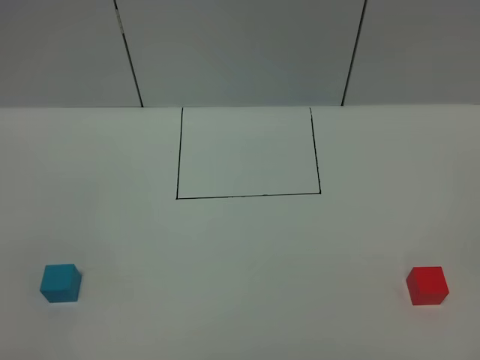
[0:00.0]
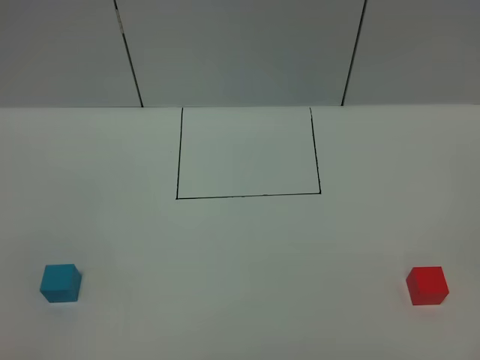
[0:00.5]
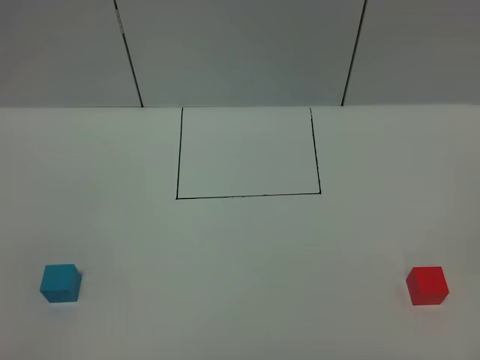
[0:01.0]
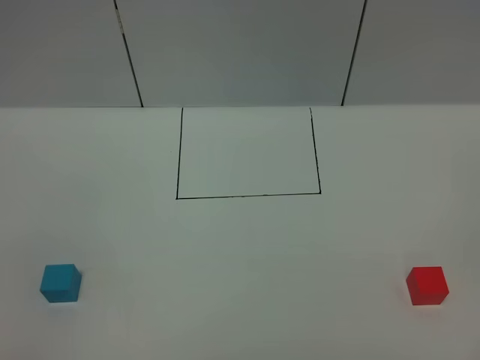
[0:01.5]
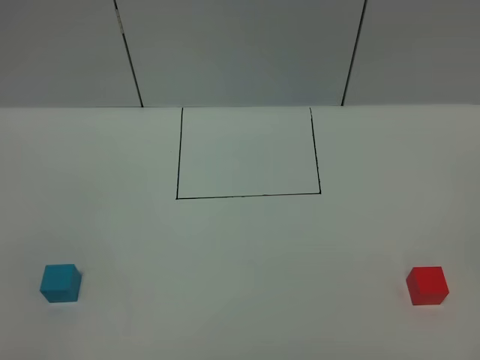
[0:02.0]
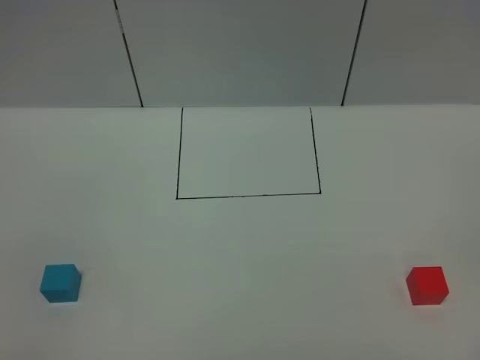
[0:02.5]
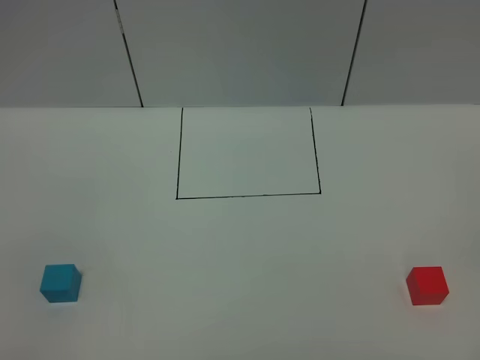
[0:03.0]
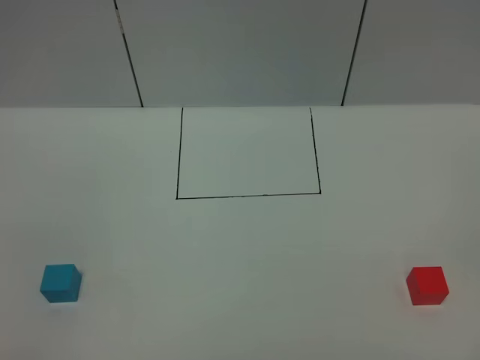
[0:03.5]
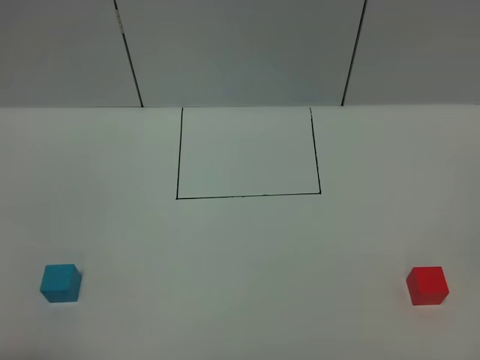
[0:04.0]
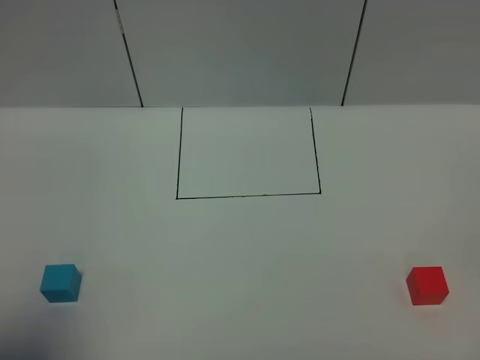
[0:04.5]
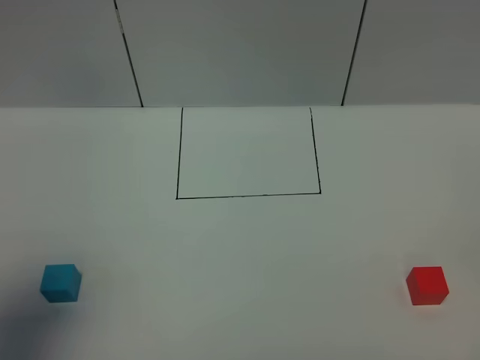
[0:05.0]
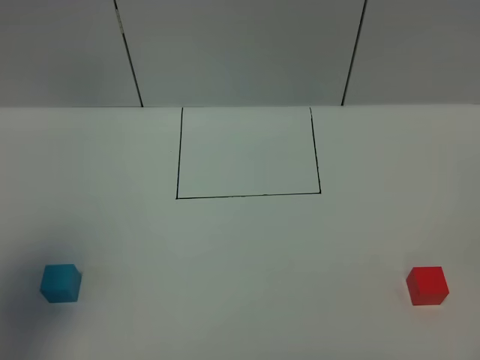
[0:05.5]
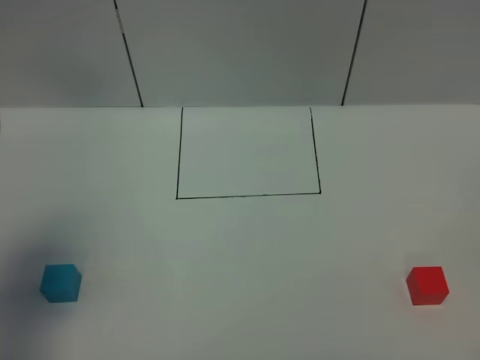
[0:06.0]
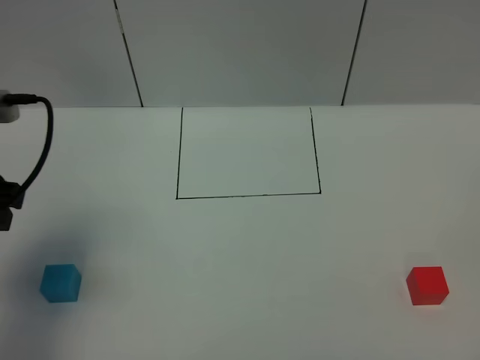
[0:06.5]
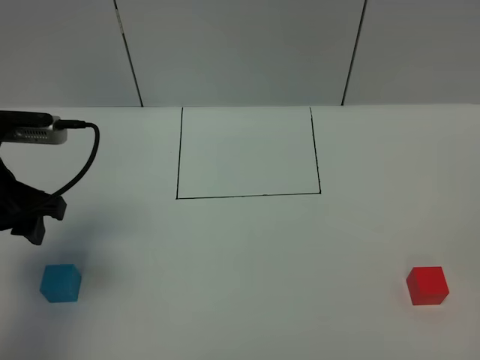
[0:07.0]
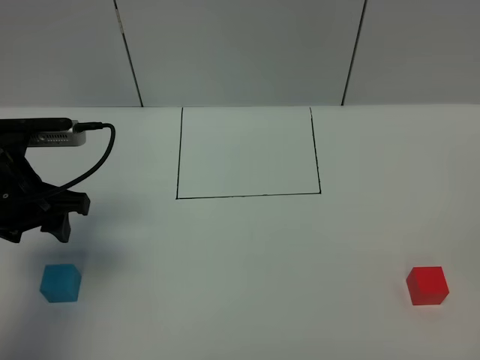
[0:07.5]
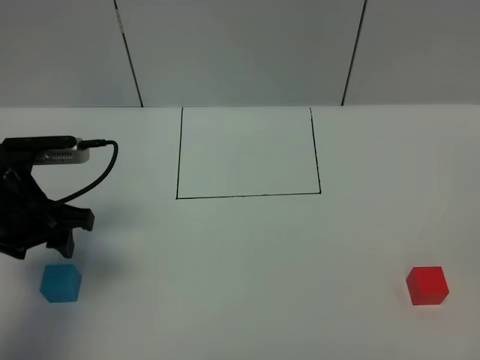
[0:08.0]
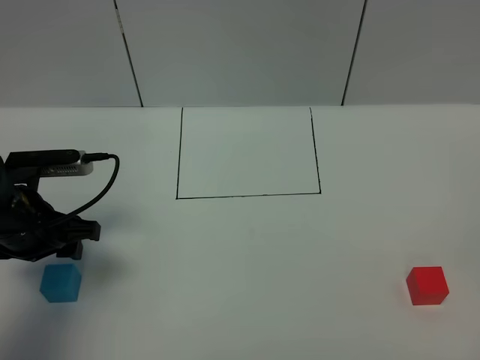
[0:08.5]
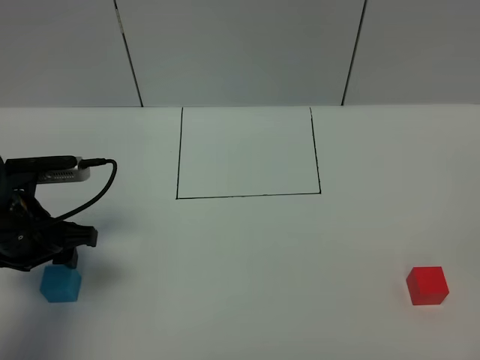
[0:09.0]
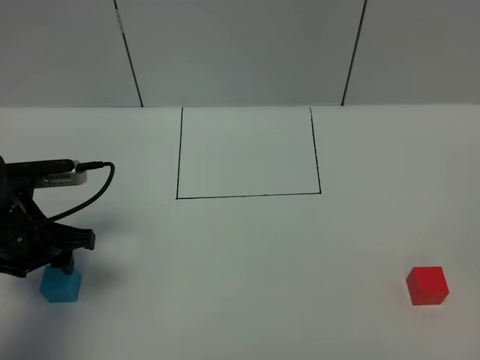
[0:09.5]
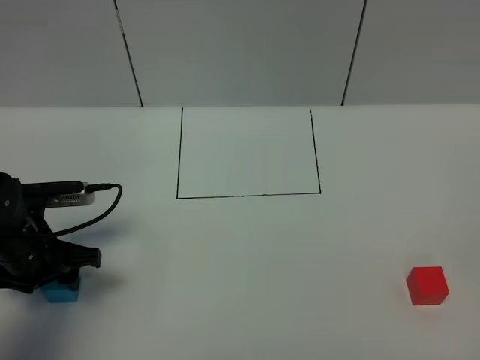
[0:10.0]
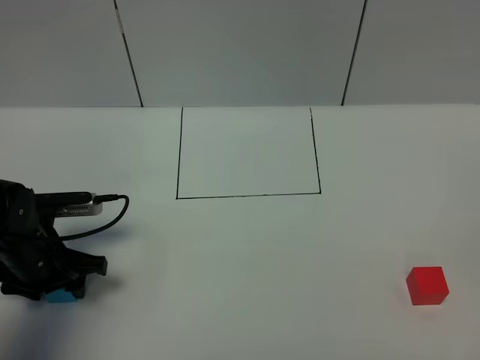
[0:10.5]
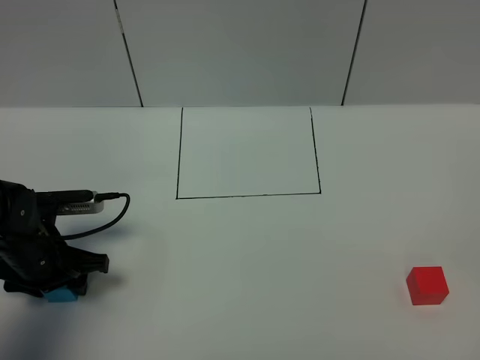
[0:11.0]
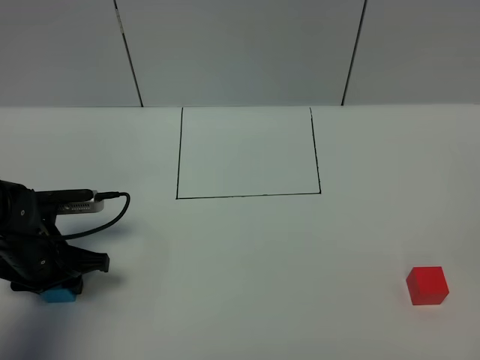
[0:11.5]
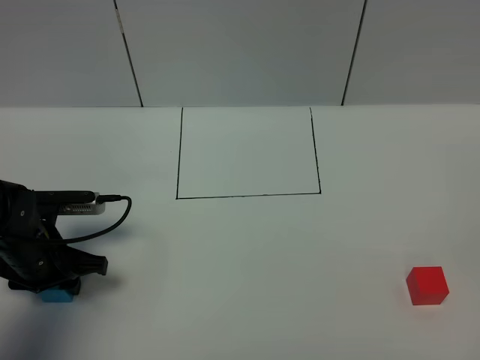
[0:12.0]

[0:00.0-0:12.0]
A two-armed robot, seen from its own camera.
Task of the whole recording: According to the building block template in front, assemble the scattered blocks together.
0:00.0 to 0:02.0: Neither gripper changes place.
0:04.0 to 0:06.0: The left gripper goes approximately 20 cm forward.
0:06.0 to 0:08.0: The left gripper moves downward, forward and to the right, approximately 15 cm.
0:08.0 to 0:10.0: The left gripper shifts approximately 5 cm downward.
0:10.0 to 0:12.0: The left gripper closes.

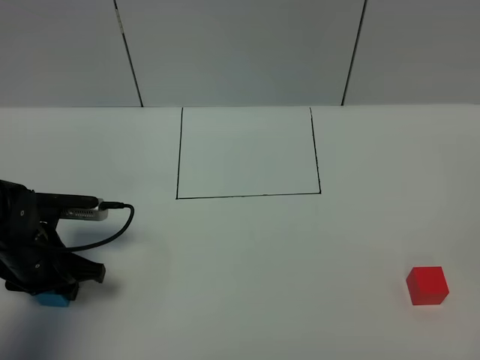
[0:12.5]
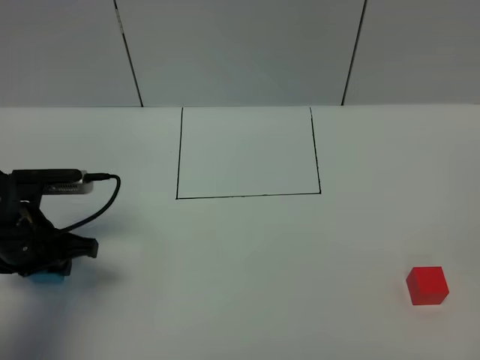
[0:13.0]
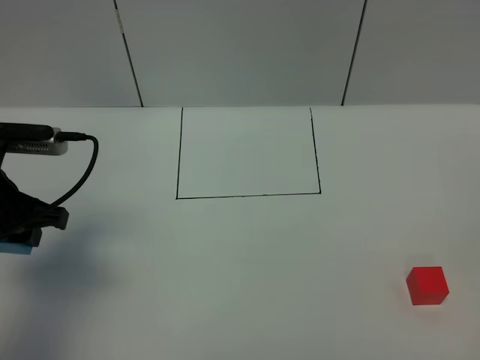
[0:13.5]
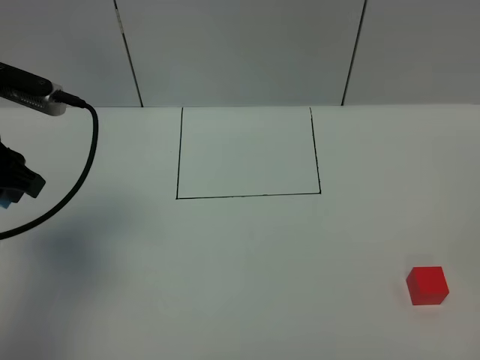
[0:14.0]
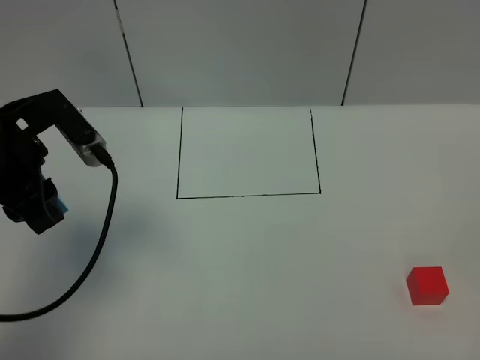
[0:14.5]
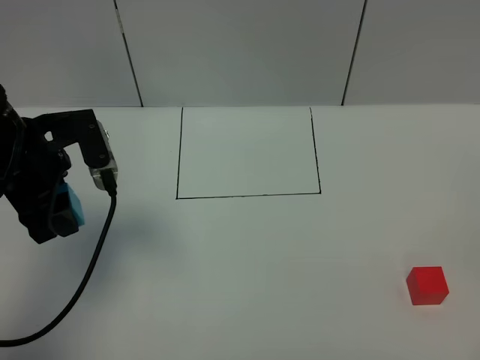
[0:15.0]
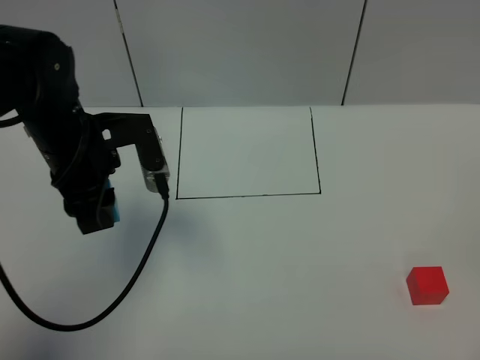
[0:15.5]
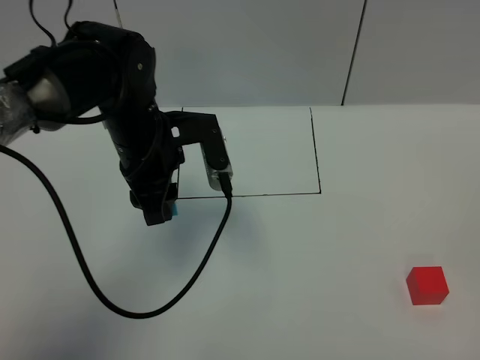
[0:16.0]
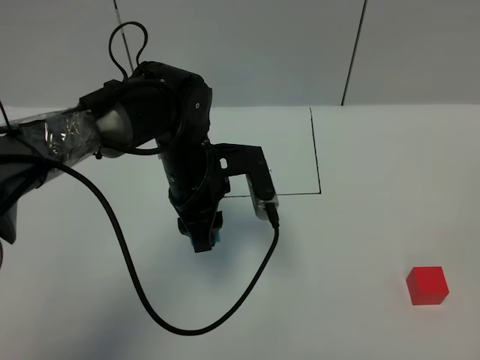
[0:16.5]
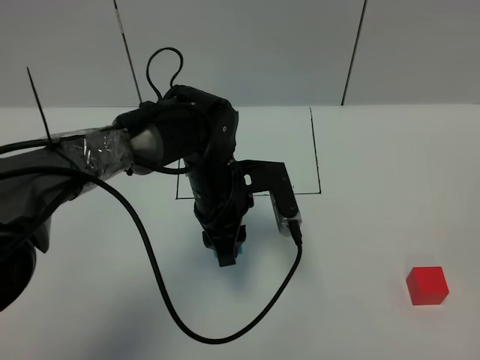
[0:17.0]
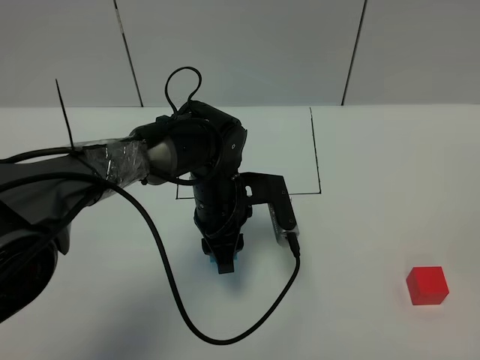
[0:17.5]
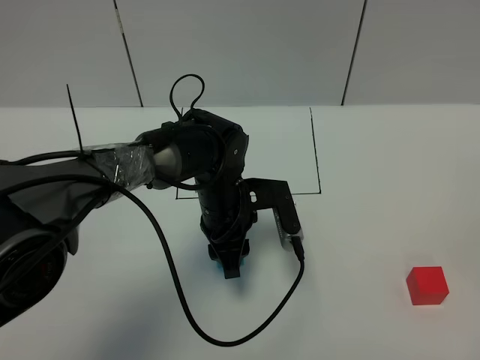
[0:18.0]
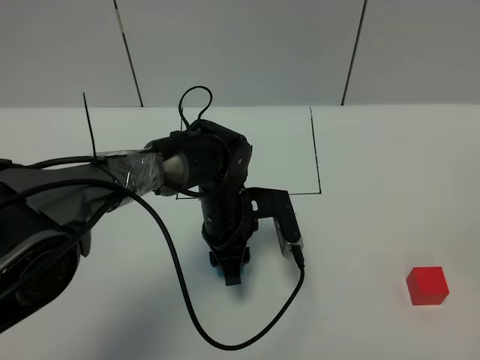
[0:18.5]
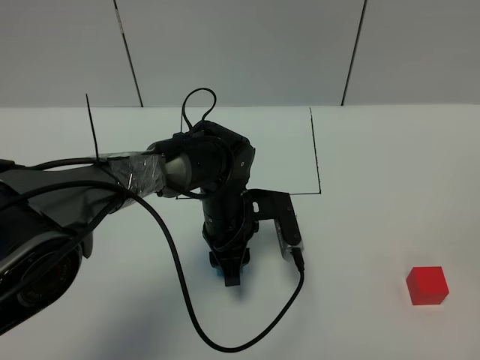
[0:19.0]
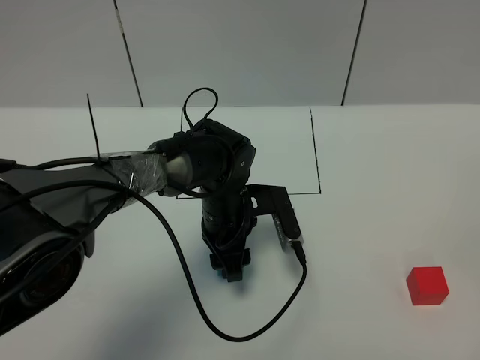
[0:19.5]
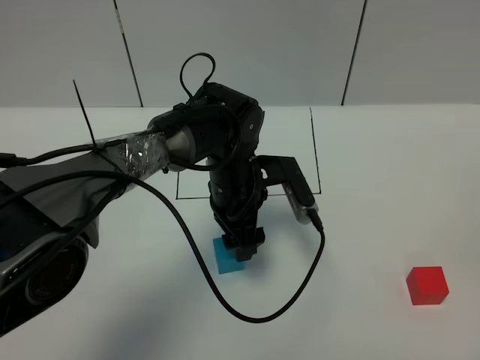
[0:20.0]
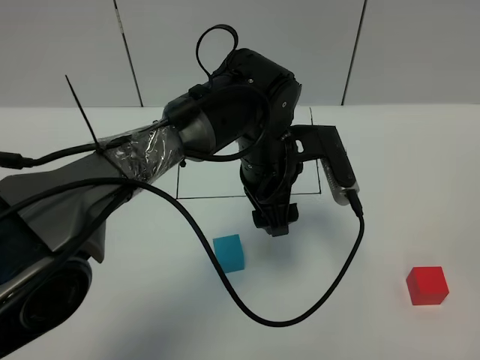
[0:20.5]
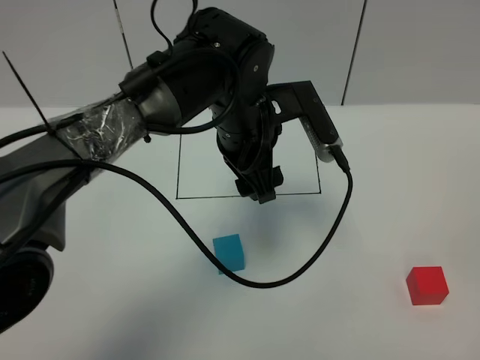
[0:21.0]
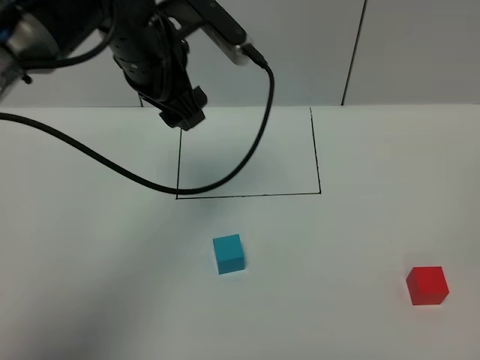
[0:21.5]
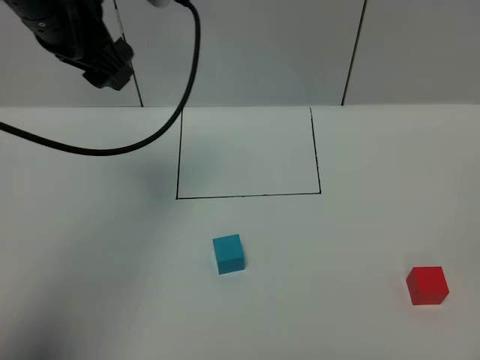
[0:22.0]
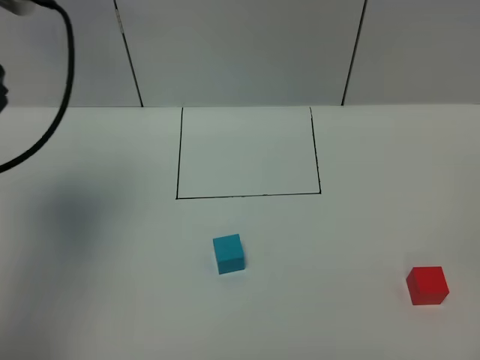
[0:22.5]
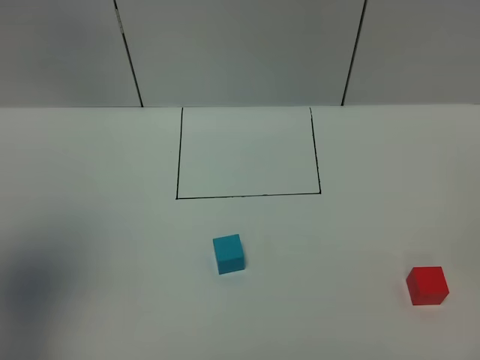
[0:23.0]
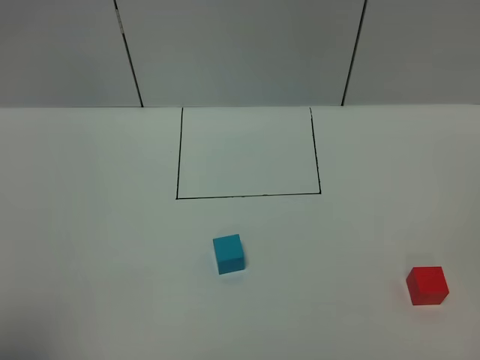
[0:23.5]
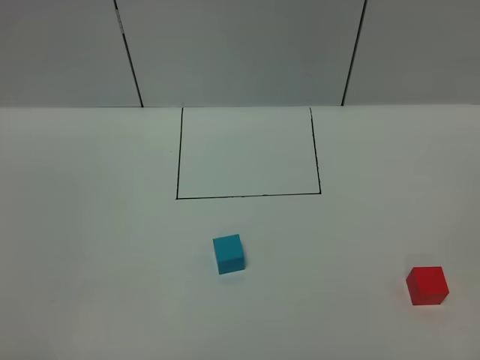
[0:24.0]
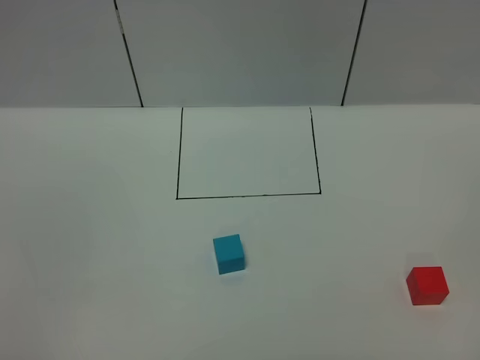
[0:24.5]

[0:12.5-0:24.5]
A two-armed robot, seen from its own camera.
Task of the whole recording: According to the building block template in front, assemble the scattered blocks together.
Step, 0:12.5 to 0:20.5: Put the blue cube in the center of the table.
0:12.5 to 0:14.5: The left gripper heads upward, covering roughly 15 cm.
0:14.5 to 0:16.5: The left gripper travels to the right and downward by roughly 20 cm.
0:16.5 to 0:18.5: The left gripper goes roughly 10 cm downward.
0:18.5 to 0:20.5: The left gripper heads upward and to the right, covering about 10 cm, and opens its fingers.
0:20.5 to 0:22.5: The left gripper is displaced to the left and upward by approximately 35 cm.
0:22.5 to 0:24.5: The left gripper is displaced backward by about 35 cm.

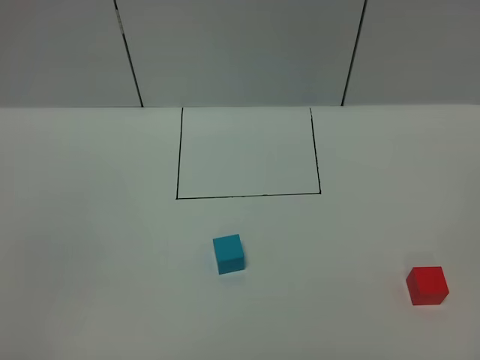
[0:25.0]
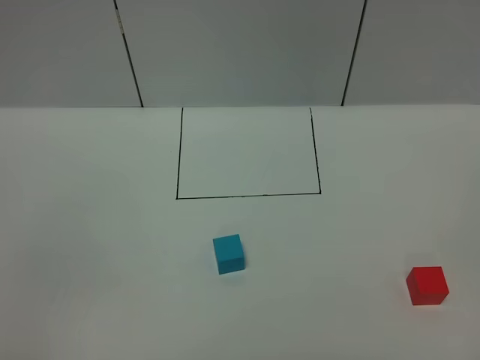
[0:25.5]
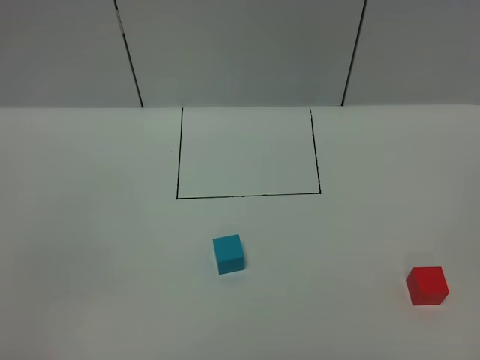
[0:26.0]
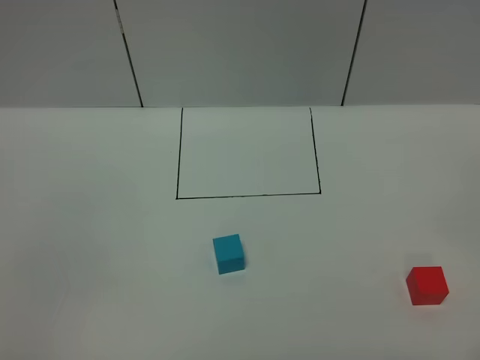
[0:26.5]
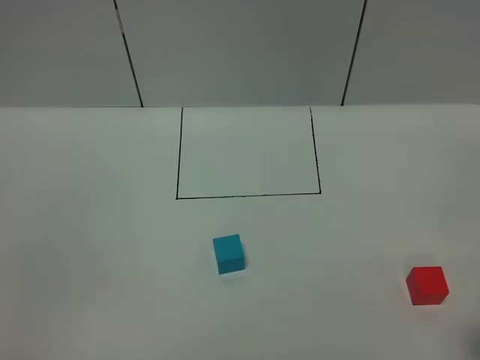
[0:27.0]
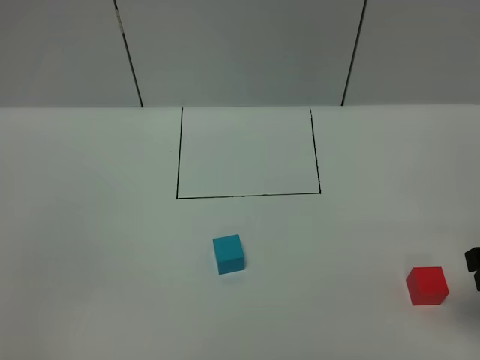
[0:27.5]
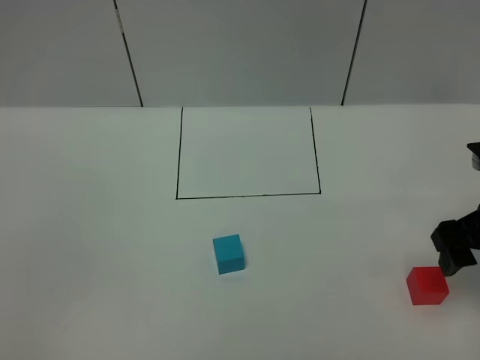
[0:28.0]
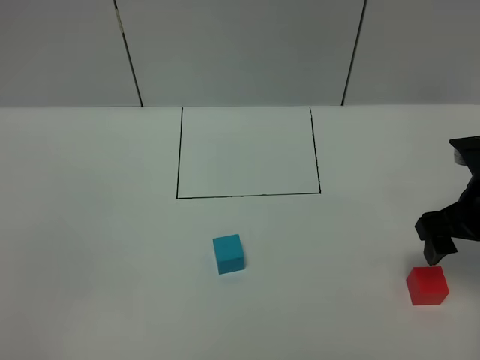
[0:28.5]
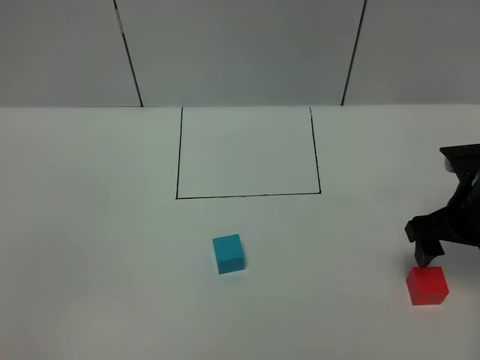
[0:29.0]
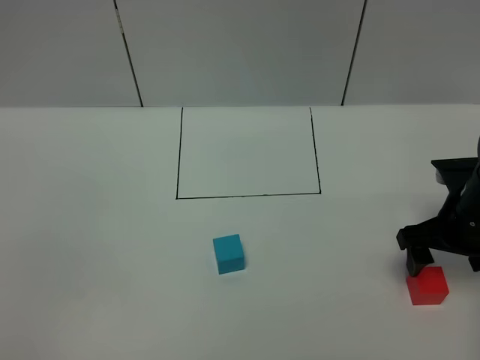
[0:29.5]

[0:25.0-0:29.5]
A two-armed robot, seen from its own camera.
Task of the whole recording: According to the building block template in front, assemble the scattered blocks together.
0:27.0 to 0:29.5: The right gripper moves forward and downward, roughly 20 cm, and opens.
